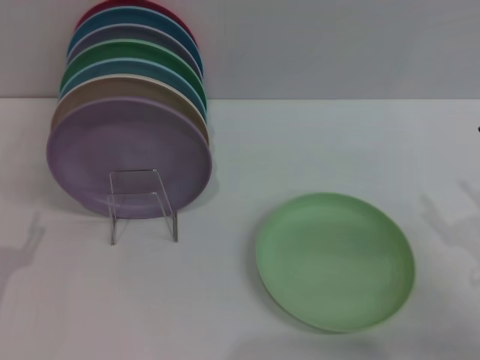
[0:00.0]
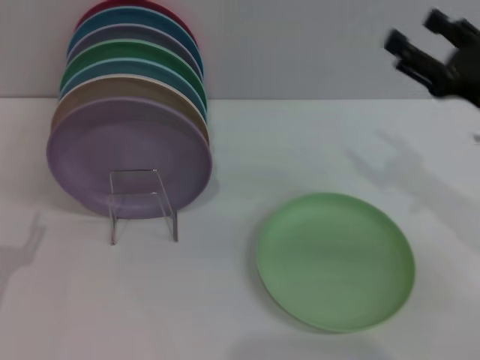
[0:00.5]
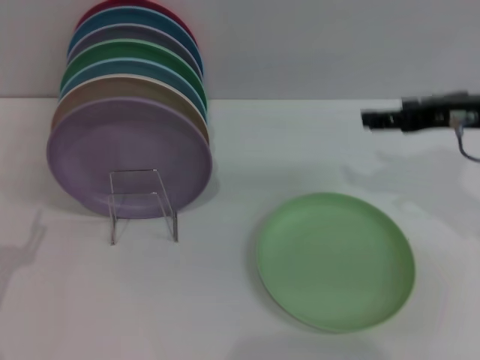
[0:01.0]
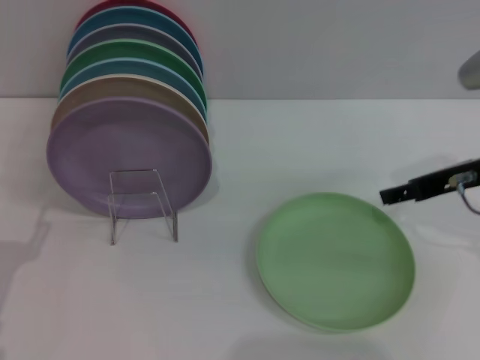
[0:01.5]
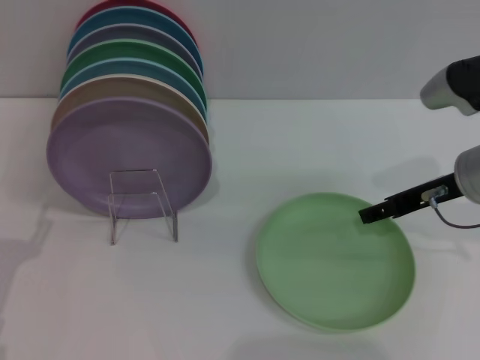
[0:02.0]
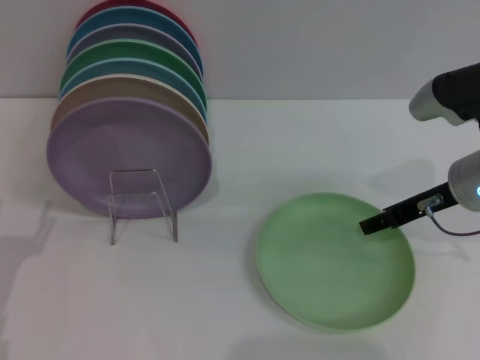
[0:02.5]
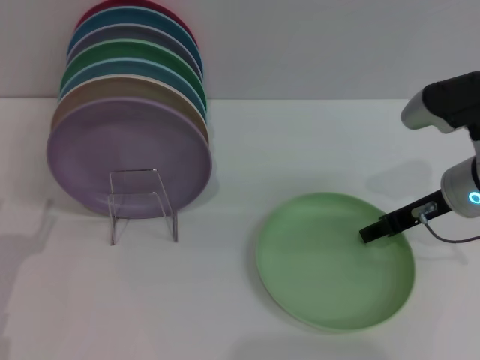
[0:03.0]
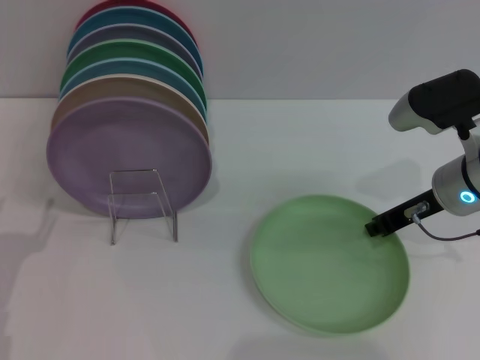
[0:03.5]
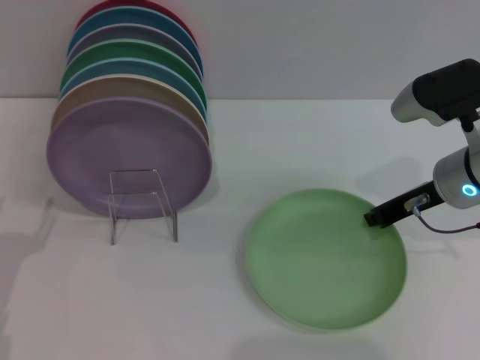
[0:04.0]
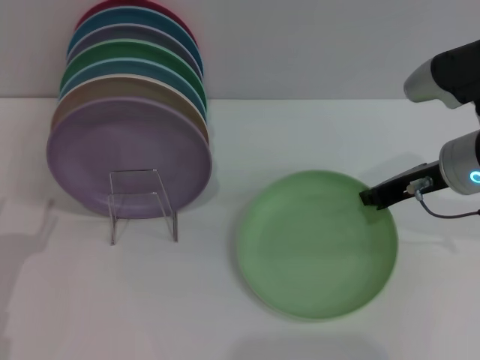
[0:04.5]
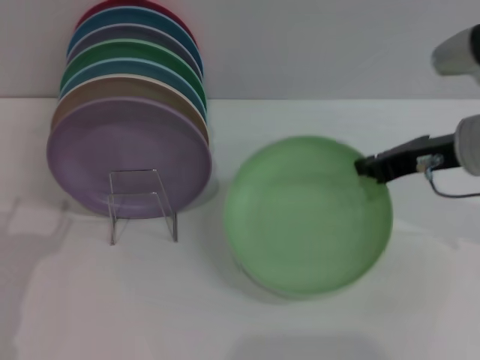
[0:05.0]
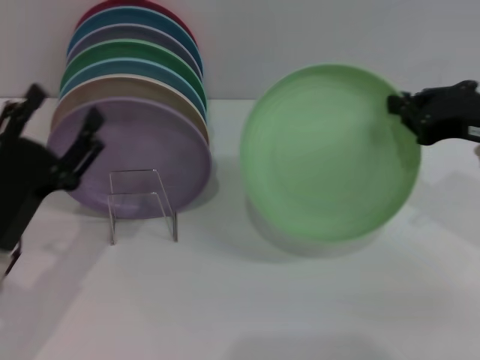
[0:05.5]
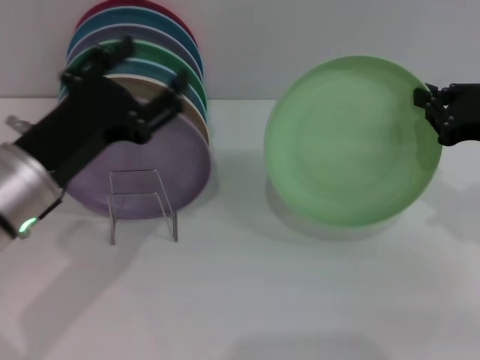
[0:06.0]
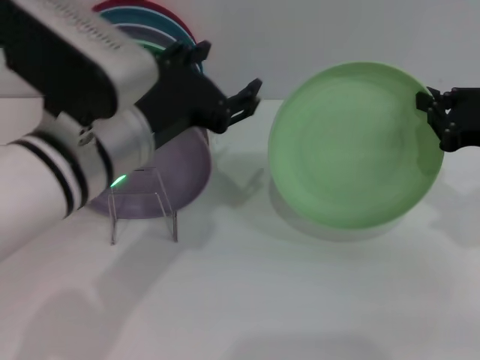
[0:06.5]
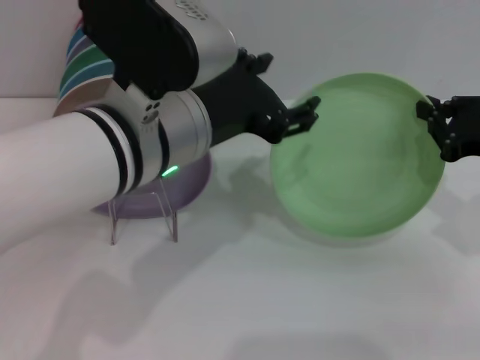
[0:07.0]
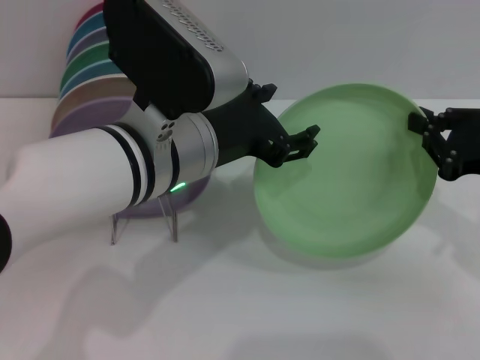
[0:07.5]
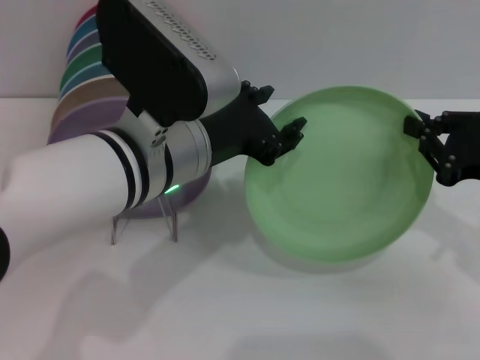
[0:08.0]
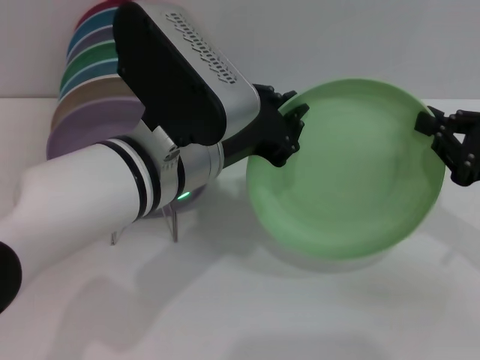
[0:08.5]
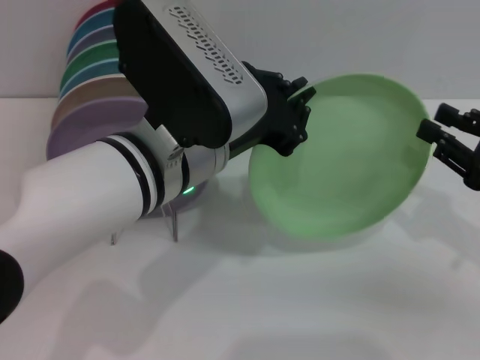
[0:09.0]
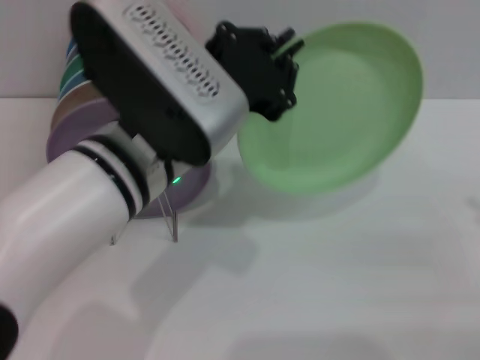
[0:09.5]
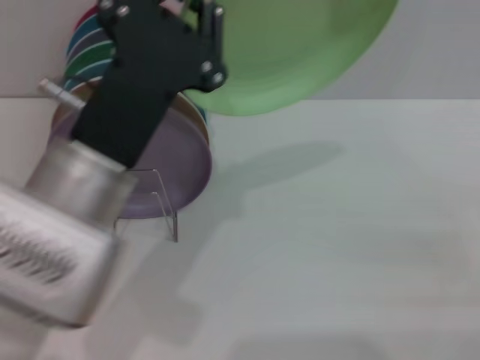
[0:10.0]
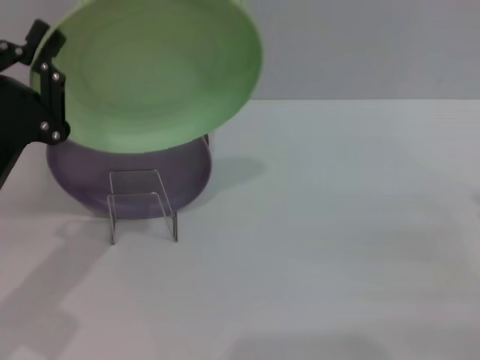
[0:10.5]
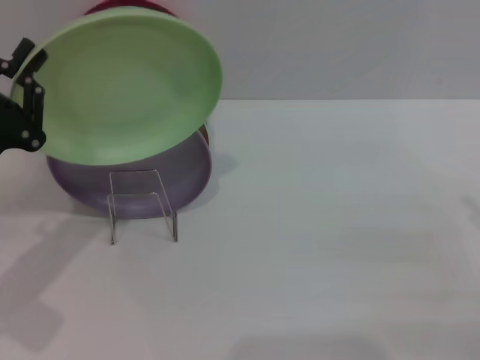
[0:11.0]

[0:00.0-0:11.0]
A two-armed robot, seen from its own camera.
Task of the whole recording: Grip the plate with one hand, pass it to the other, then set it on the shelf.
Step, 0:00.0 to 0:05.0: Pick up the plate with the right gripper.
Step, 0:05.5 to 0:09.0: Pass the plate from the right gripper to the left gripper.
0:00.0 to 0:02.0: The right gripper heads forward, upward and to the left, covering some 15 cm.
0:02.0 to 0:03.5: The right gripper closes.
0:03.5 to 0:05.5: The right gripper travels upward by approximately 5 cm, and closes its fingers. Meanwhile the left gripper travels to the right by about 5 cm.
0:05.5 to 0:07.5: The left gripper travels to the right and upward by some 20 cm. The right gripper ends up approximately 5 cm from where it was.
0:07.5 to 0:09.0: The left gripper closes its fingers.
0:09.0 to 0:11.0: The left gripper is displaced to the left and downward by about 25 cm, while the right gripper is displaced to the right and backward by approximately 10 cm, and opens up.

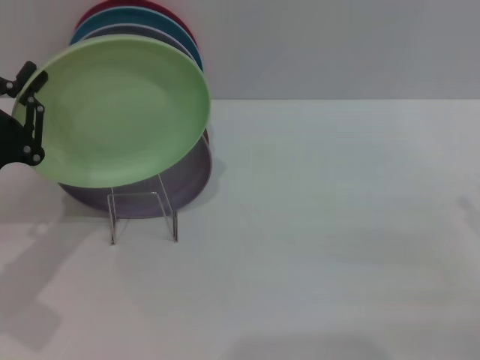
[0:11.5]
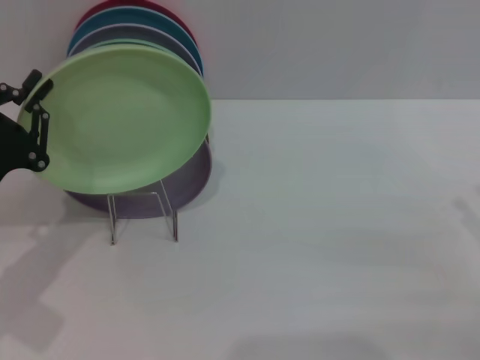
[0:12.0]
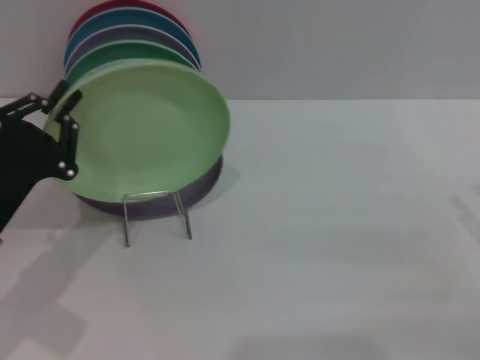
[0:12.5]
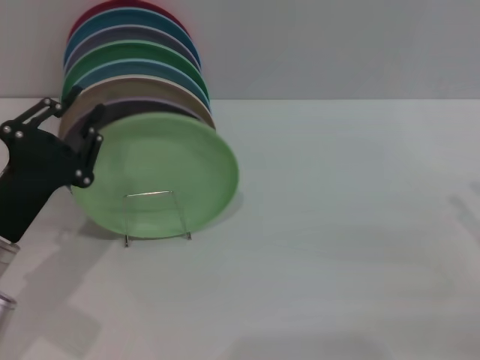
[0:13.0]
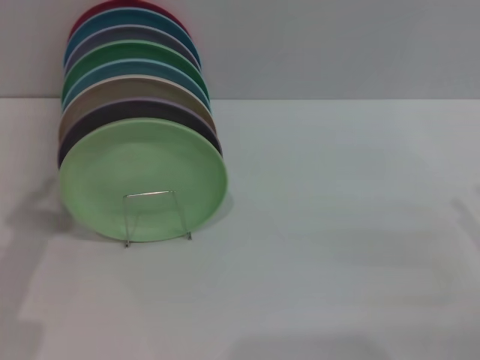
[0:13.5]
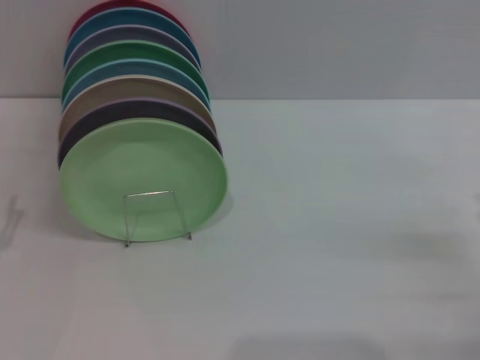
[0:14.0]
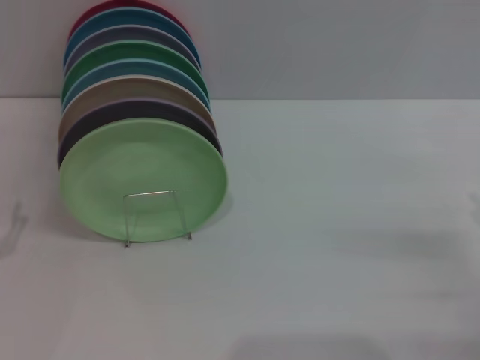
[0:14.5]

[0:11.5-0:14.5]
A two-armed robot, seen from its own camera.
Task of the whole recording: Grip the plate with one hand, pass it to the other, then set it on the shelf.
0:11.5 to 0:13.0: The grippers move only a little.
0:13.0 to 0:14.5: The left gripper is displaced to the left and backward by about 10 cm, and opens up.

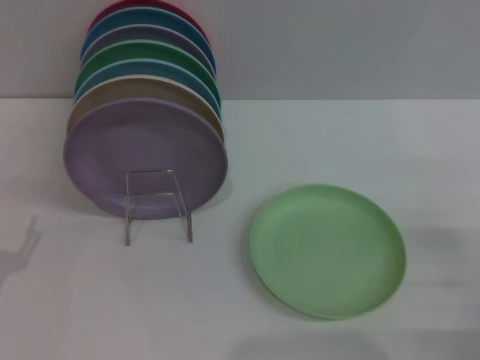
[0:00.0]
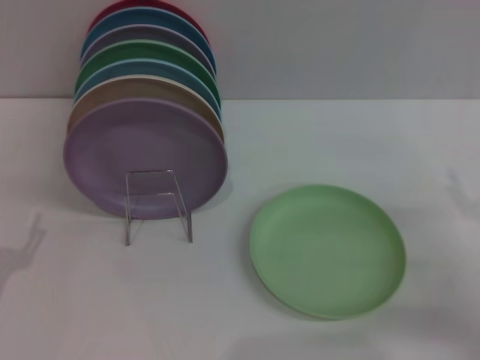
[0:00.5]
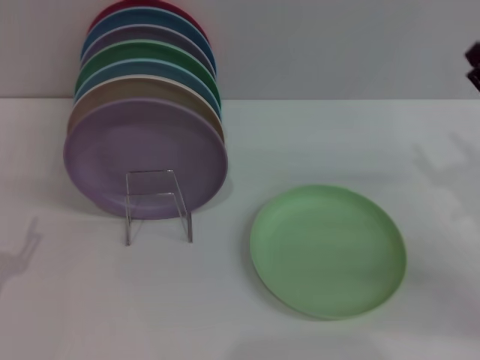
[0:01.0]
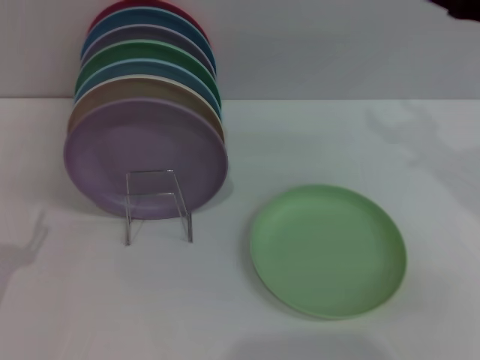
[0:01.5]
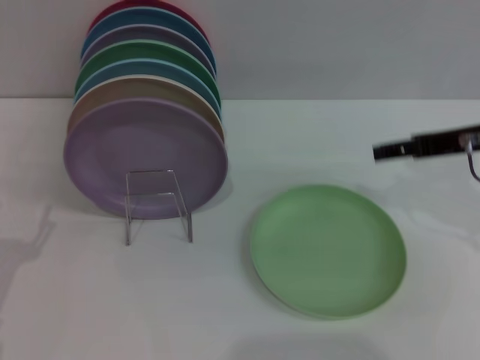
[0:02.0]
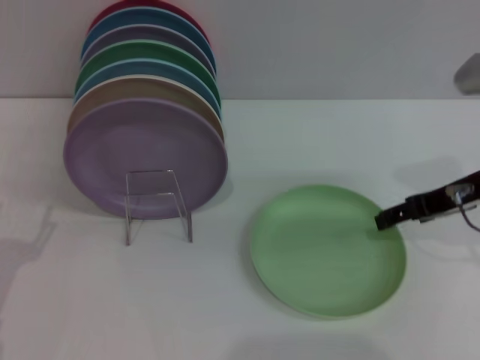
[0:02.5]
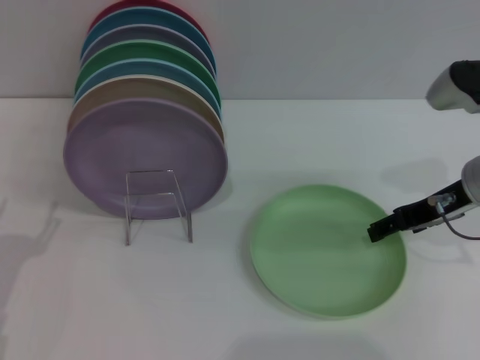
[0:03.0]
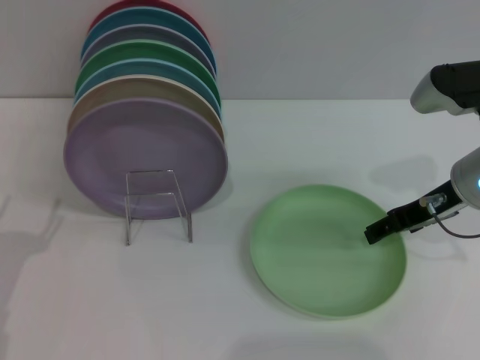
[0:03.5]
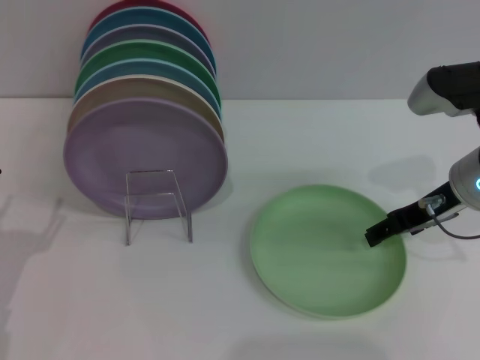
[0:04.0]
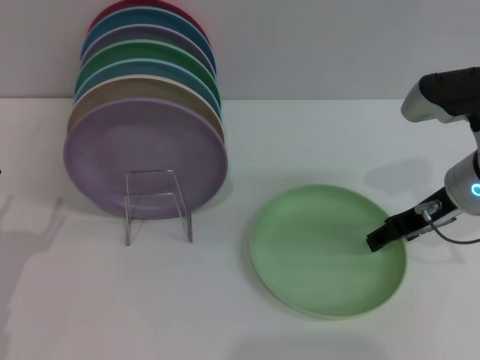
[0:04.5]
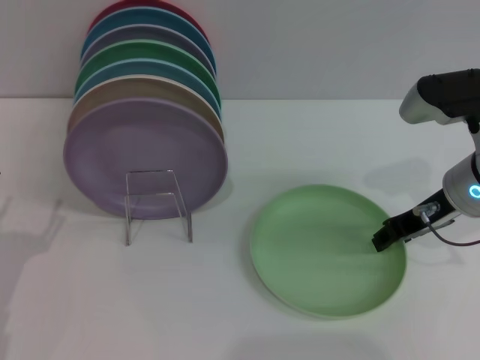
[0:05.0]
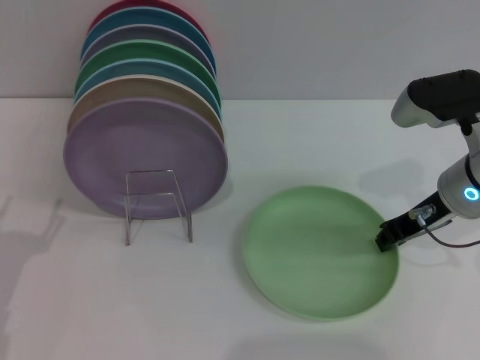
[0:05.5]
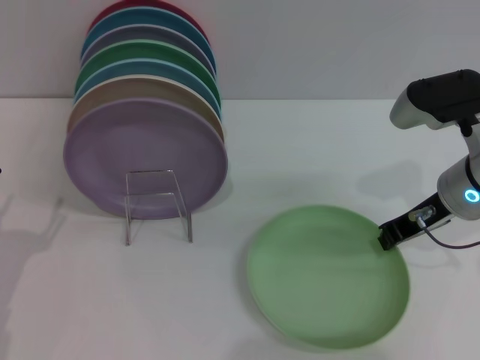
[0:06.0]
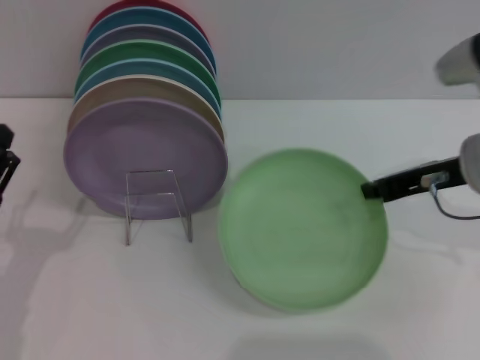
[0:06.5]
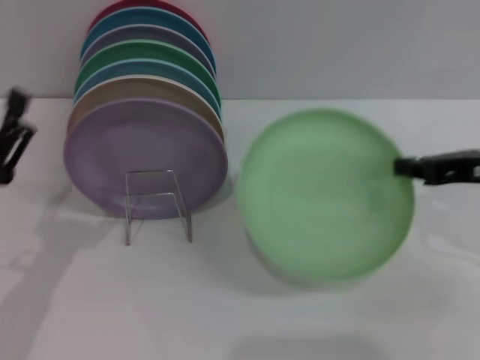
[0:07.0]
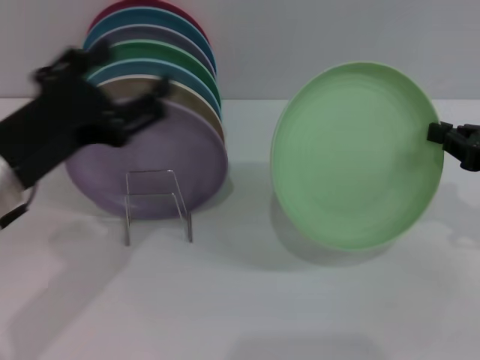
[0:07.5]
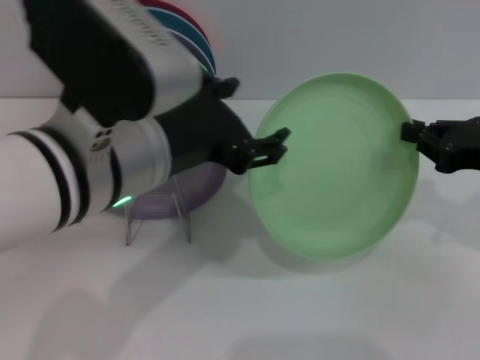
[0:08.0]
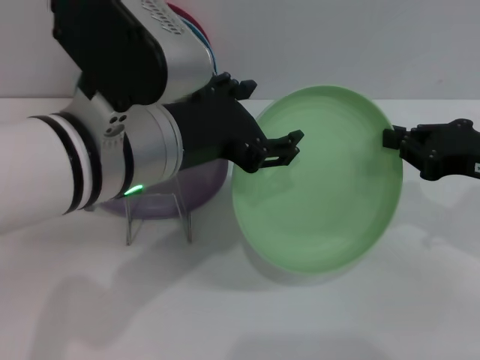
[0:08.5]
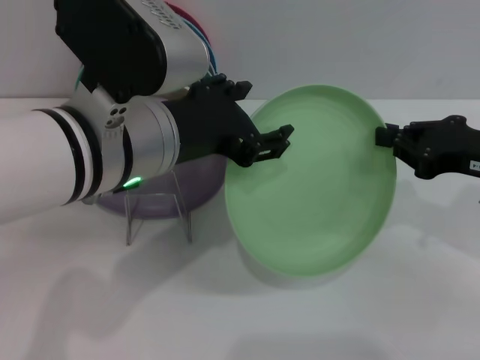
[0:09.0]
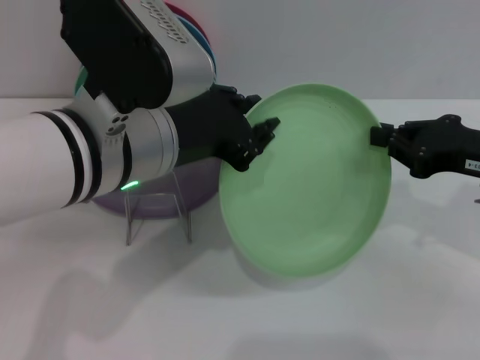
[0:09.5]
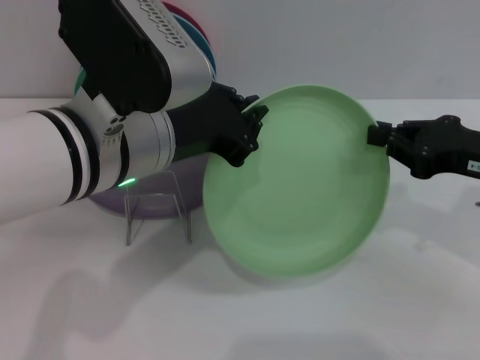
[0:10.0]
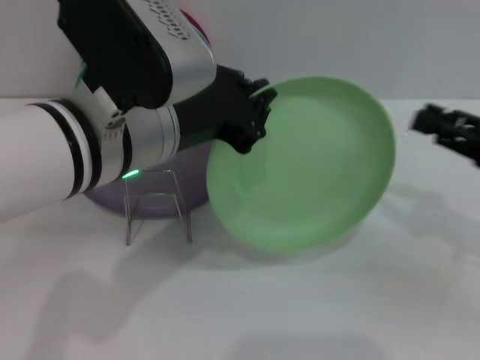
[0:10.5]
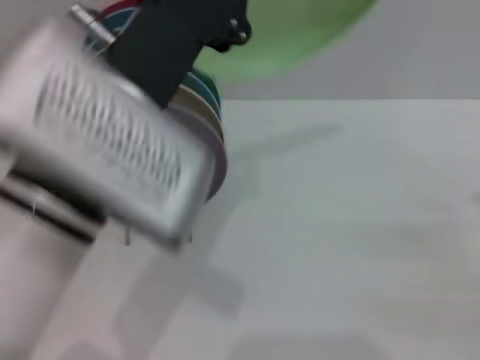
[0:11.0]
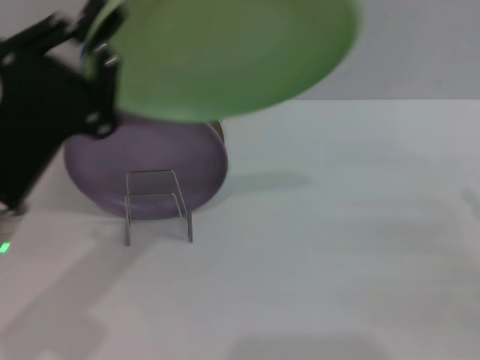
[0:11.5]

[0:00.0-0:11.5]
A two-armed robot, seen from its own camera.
Task of the whole recording: Grip the plate with one hand, pass it to the other, then set it on the shelf.
Step, 0:00.0 to 0:06.0: Pick up the plate with the right gripper.
Step, 0:06.5 to 0:10.5: Pass the plate from the right gripper to the left gripper.
0:00.0 to 0:02.0: The right gripper is displaced upward, forward and to the left by some 20 cm.
0:02.0 to 0:04.0: The right gripper heads downward, covering some 5 cm.
0:04.0 to 0:06.0: The right gripper closes up.
0:06.0 to 0:07.5: The left gripper shifts approximately 20 cm upward and to the right. The right gripper shifts approximately 10 cm to the right and backward.
0:07.5 to 0:09.5: The left gripper travels to the right by roughly 10 cm, and closes its fingers.
0:09.5 to 0:11.5: The right gripper heads to the right and backward, covering some 15 cm, and opens up, while the left gripper moves to the left and downward, roughly 15 cm, and closes.
